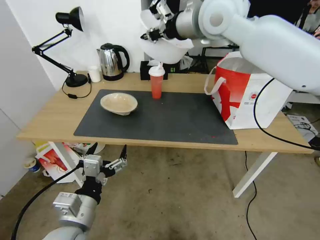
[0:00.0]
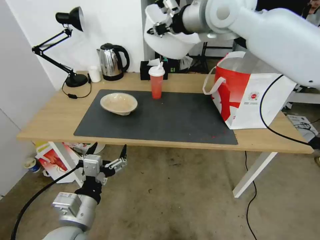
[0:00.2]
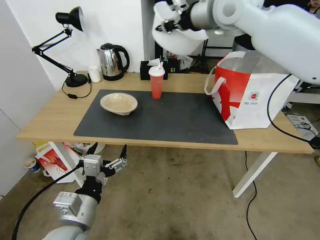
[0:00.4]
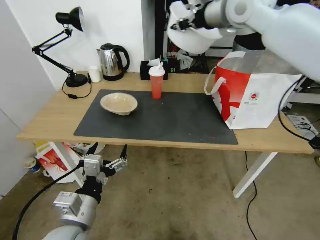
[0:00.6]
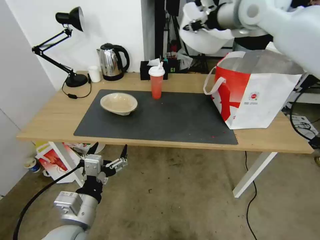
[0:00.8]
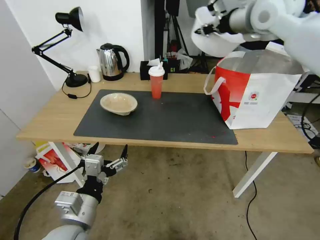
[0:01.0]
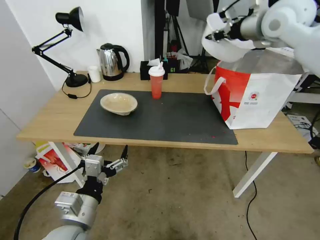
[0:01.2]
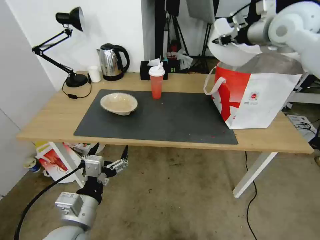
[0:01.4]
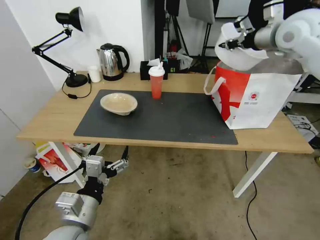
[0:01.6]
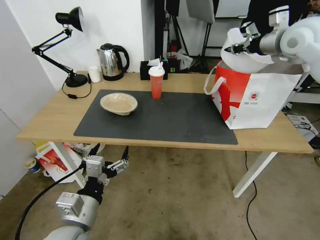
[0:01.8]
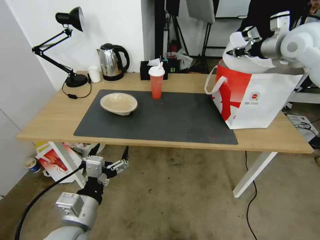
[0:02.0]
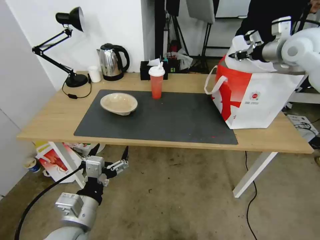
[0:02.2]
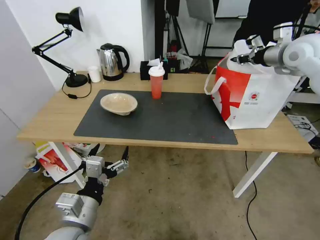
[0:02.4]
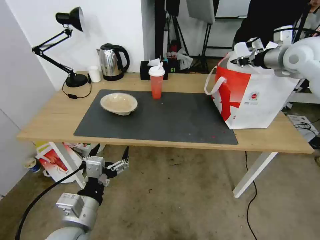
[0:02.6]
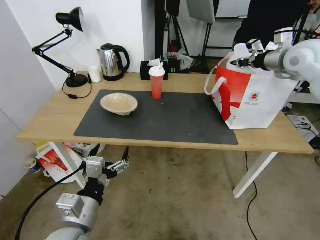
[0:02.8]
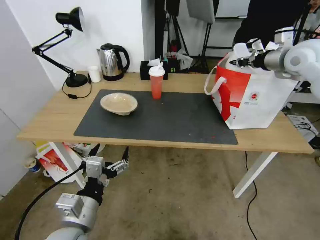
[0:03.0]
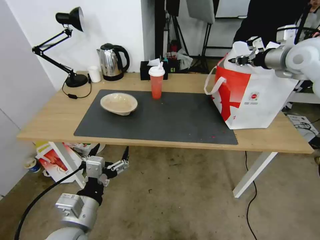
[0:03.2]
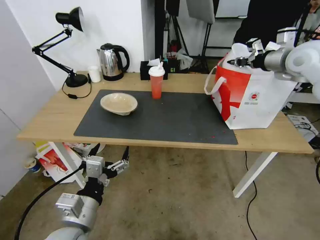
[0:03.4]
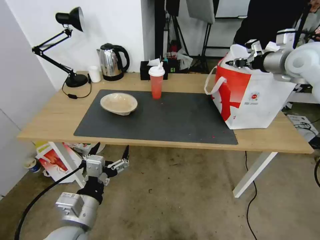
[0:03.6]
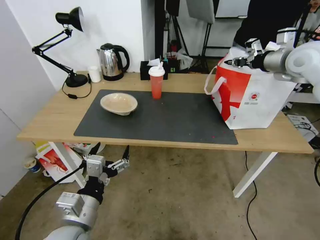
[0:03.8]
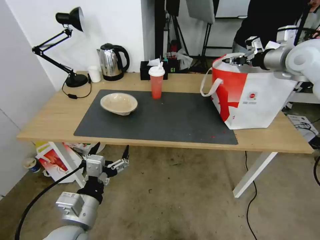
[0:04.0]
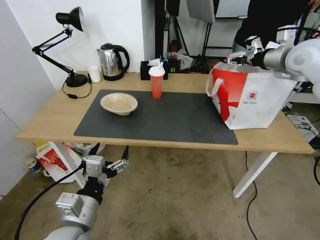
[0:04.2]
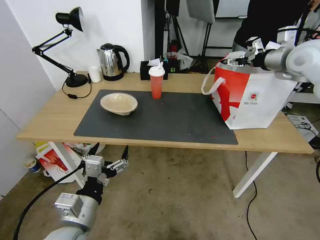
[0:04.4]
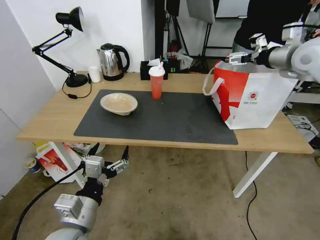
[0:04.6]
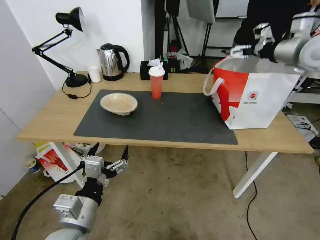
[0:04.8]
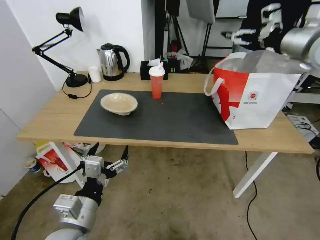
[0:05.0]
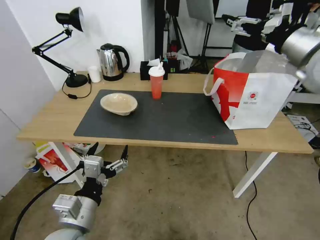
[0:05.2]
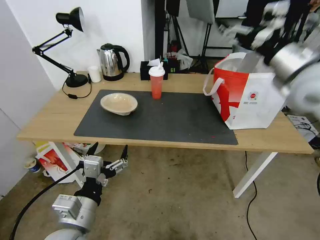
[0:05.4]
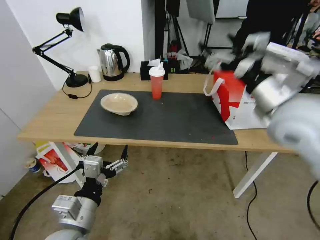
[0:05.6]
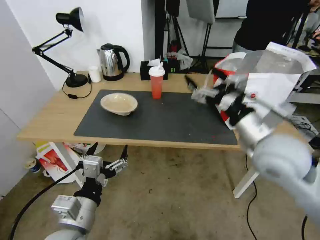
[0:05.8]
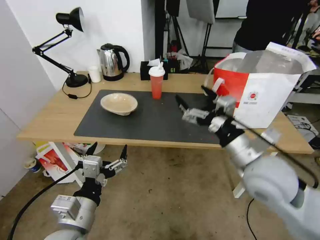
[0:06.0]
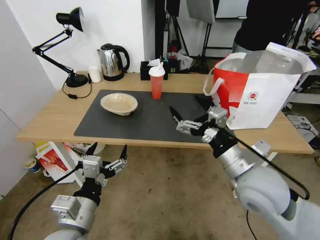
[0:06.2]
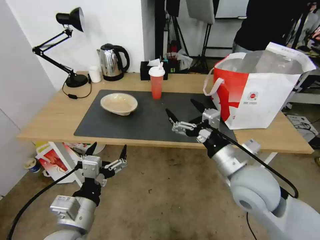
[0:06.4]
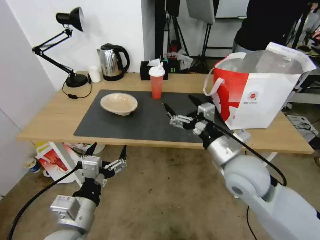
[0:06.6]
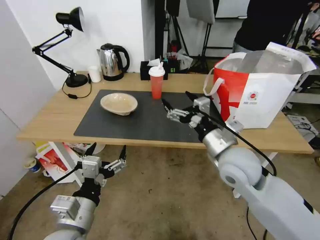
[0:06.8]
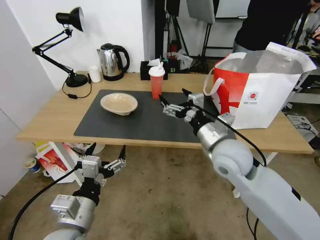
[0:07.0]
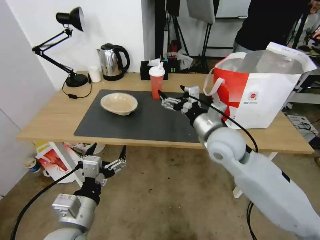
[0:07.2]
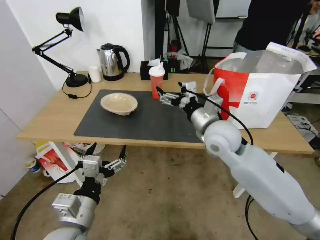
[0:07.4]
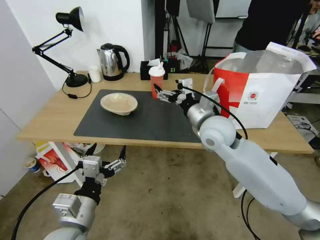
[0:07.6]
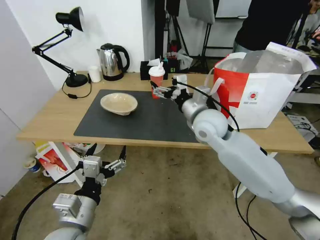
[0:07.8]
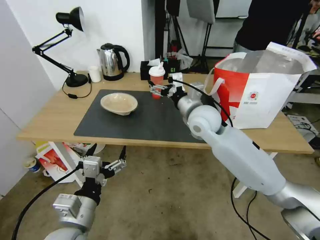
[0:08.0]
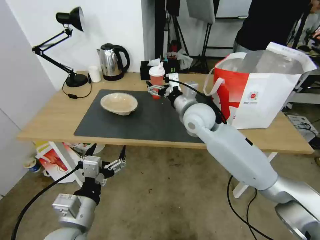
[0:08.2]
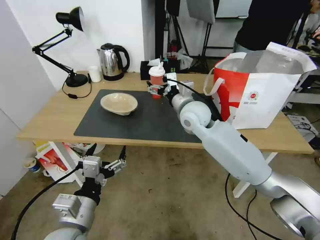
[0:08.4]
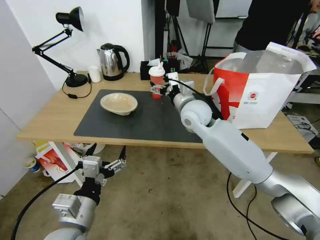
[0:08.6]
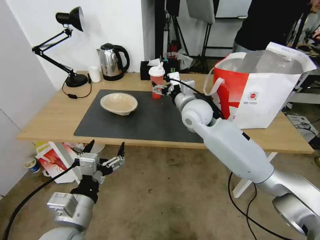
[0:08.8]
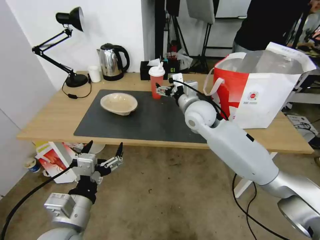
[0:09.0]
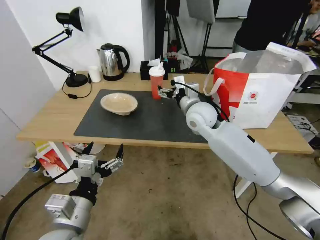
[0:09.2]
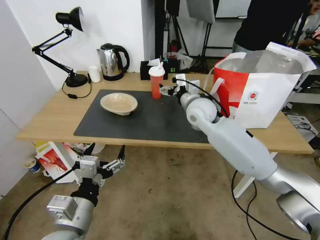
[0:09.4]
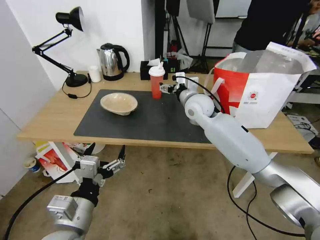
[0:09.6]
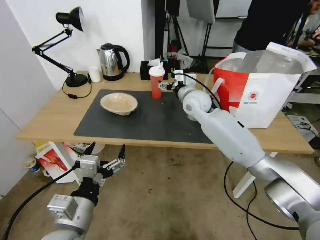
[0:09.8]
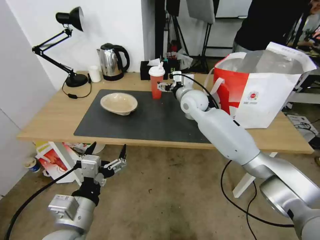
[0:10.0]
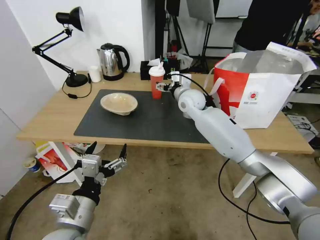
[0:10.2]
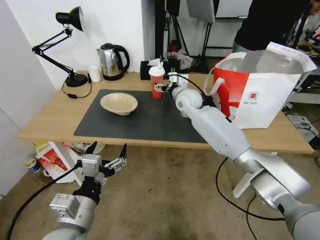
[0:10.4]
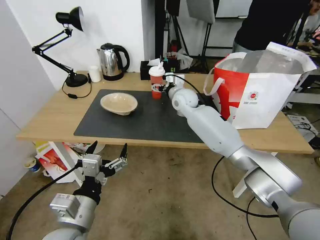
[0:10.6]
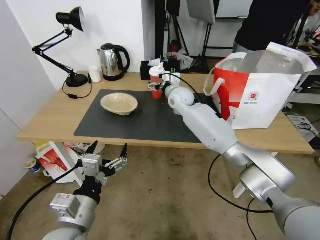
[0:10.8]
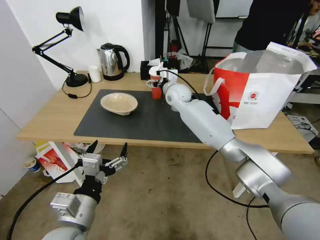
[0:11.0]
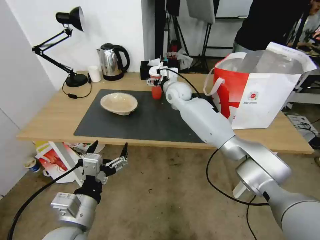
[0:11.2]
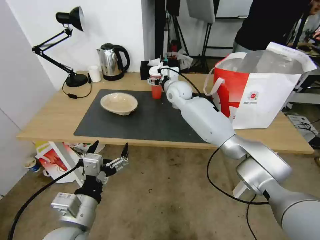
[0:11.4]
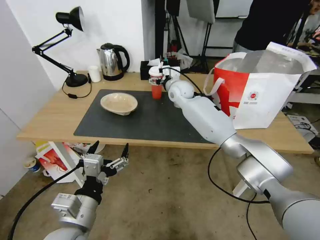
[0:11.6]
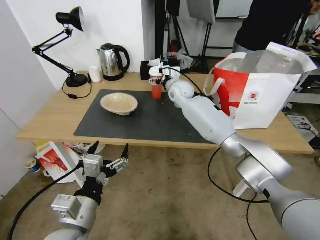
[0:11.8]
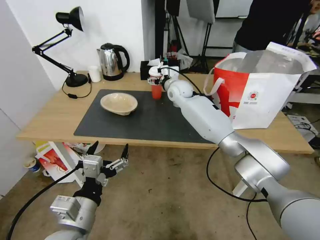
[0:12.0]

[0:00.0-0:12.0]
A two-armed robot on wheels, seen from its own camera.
Task of the whole recording: Pick up the trash from the table and place it into the takeout bag.
0:00.0 to 0:01.6: The right gripper goes about 20 cm to the right.
0:01.6 to 0:03.0: The right gripper shifts roughly 10 cm downward and to the right.
0:03.0 to 0:04.4: The right gripper opens.
0:04.4 to 0:06.0: The right gripper shifts approximately 35 cm backward, downward and to the left.
0:06.0 to 0:07.6: The right gripper moves forward and to the left, roughly 15 cm.
0:07.6 to 0:09.0: The right gripper is displaced forward by some 5 cm.
0:09.0 to 0:10.4: The right gripper heads forward, covering approximately 10 cm.
0:10.4 to 0:12.0: The right gripper shifts roughly 5 cm forward.

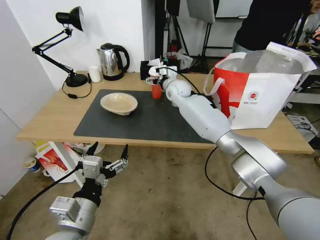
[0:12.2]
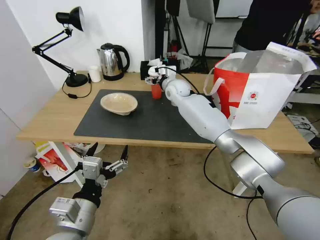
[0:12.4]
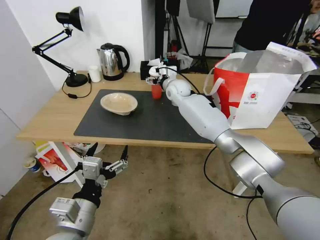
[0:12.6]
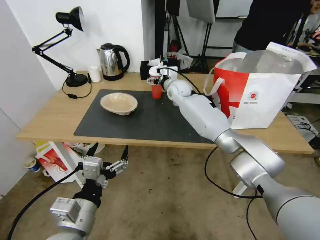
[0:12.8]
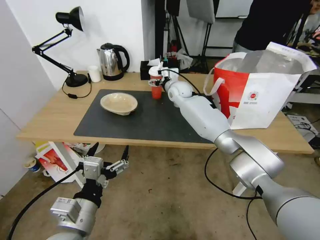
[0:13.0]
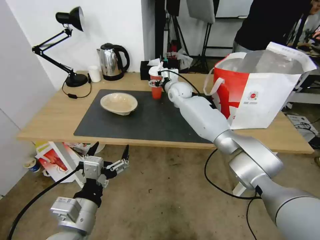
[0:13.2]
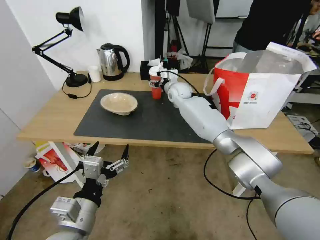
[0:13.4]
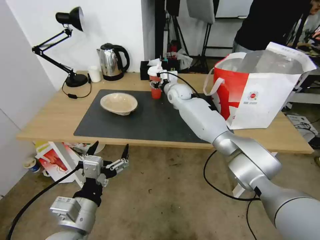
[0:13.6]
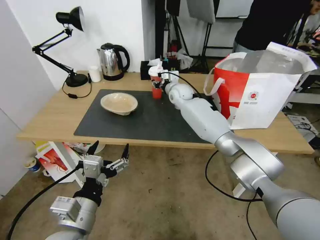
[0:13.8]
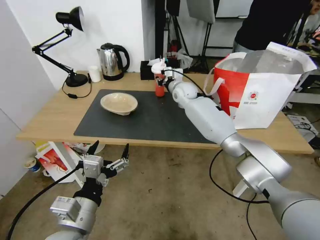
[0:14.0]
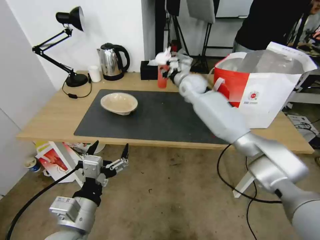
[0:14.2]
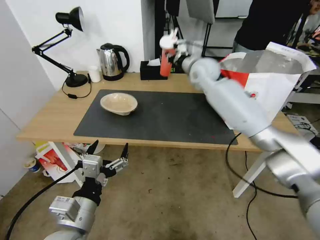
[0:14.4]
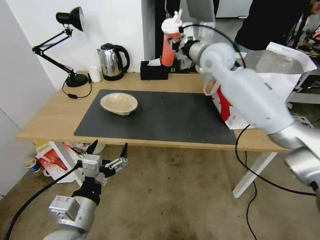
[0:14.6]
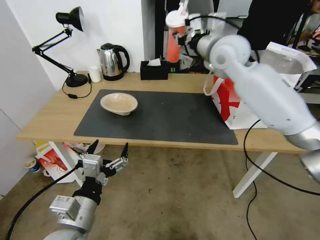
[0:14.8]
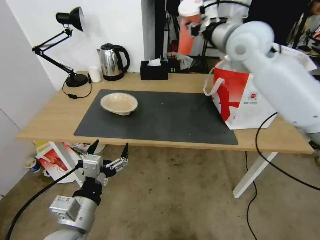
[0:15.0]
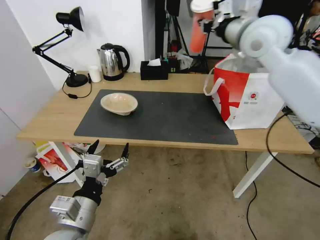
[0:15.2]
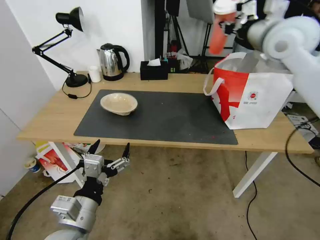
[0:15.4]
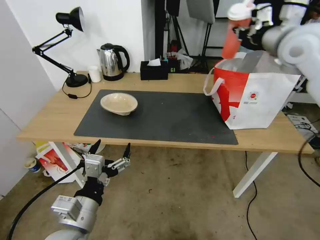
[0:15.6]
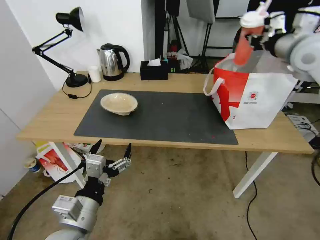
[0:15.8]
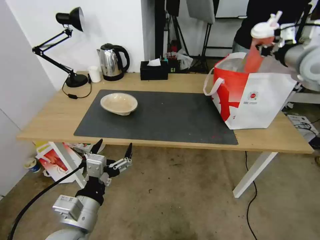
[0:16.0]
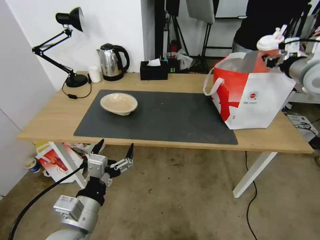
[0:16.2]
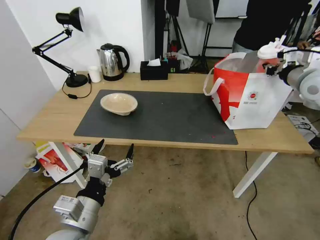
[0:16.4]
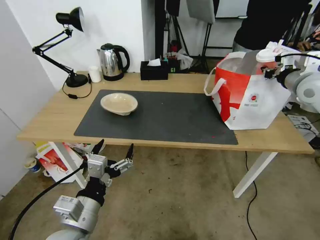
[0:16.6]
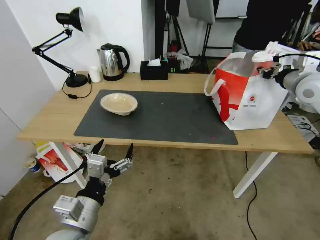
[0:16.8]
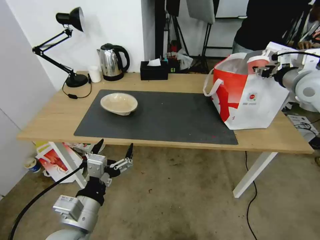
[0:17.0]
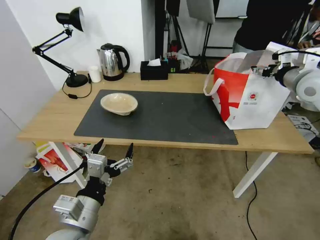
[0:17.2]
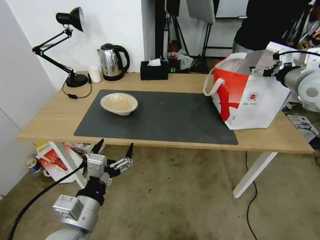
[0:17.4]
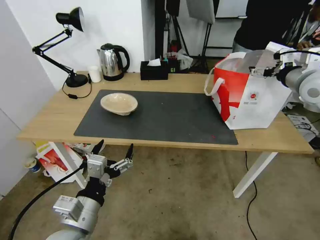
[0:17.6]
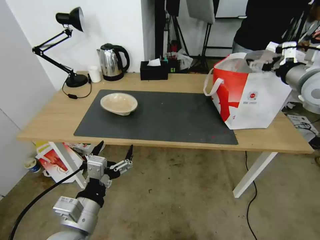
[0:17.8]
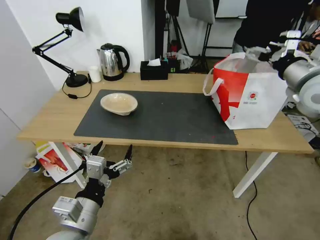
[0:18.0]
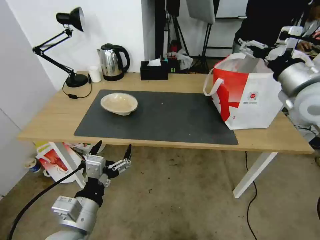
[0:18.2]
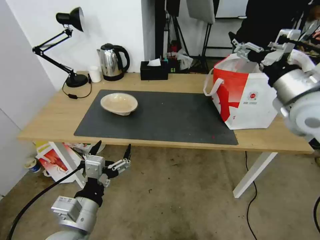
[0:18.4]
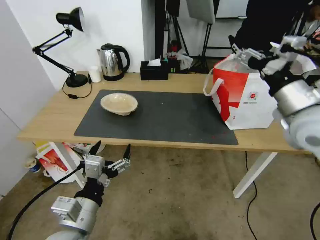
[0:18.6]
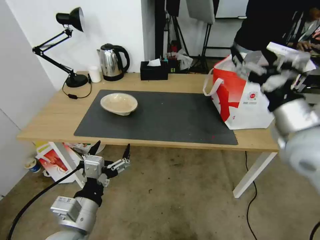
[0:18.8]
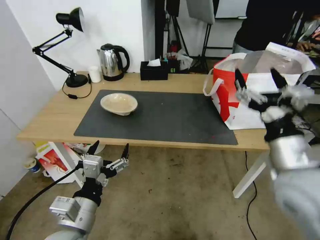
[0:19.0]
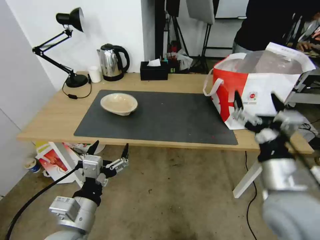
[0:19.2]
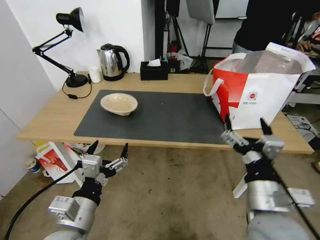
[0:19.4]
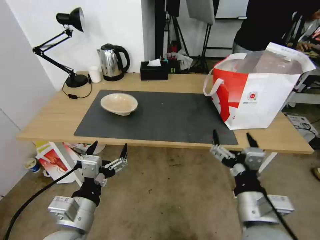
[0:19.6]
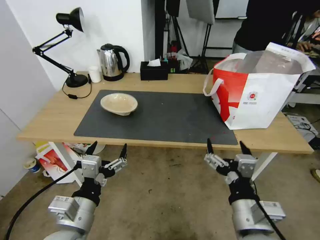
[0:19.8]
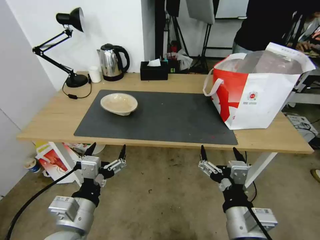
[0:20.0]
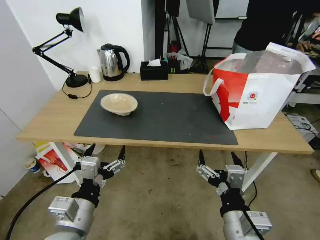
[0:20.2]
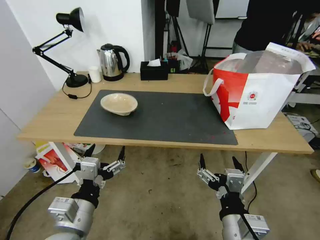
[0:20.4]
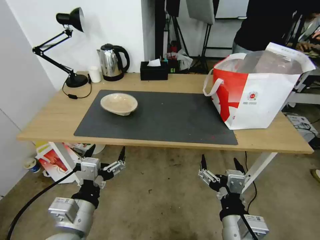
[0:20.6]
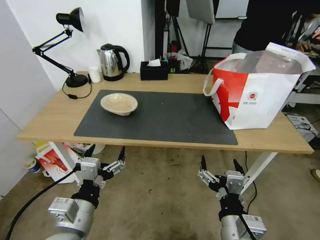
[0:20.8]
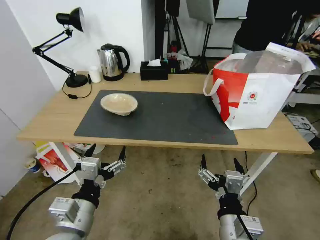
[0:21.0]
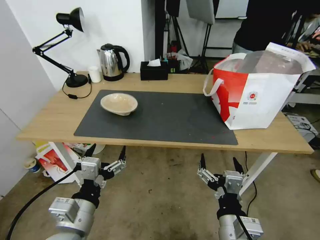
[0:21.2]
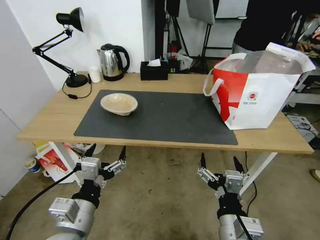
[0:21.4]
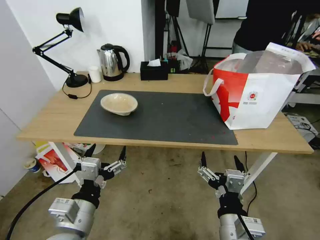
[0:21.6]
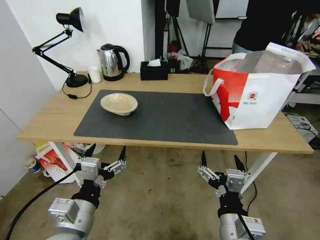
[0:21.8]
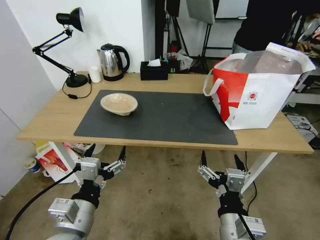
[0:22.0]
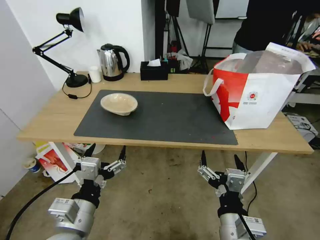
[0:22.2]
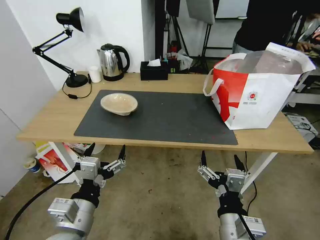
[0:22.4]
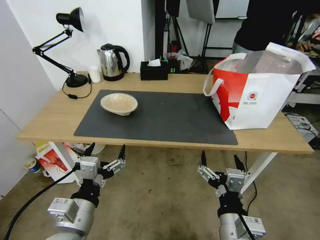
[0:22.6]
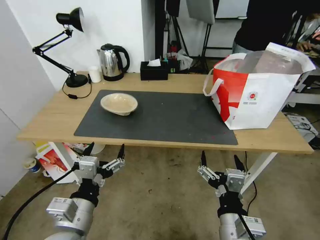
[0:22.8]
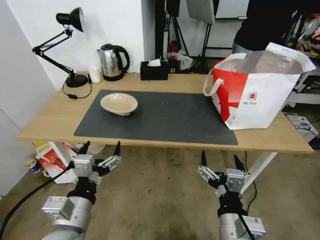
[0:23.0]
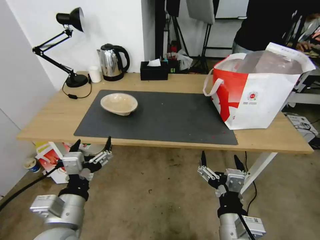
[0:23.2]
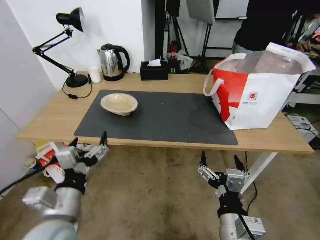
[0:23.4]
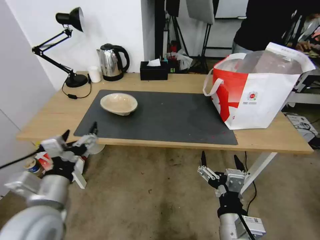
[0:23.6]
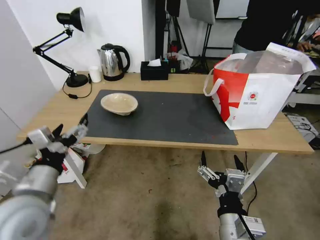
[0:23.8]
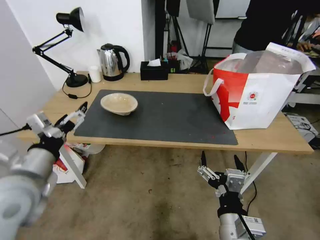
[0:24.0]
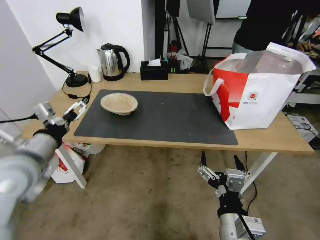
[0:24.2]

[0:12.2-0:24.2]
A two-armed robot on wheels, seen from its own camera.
Task of the whole recording: Pick up the trash from the table and place it into the takeout bag.
0:12.2 to 0:13.8: The right gripper closes.
0:13.8 to 0:15.2: The right gripper travels upward, backward and to the right by approximately 35 cm.
0:15.2 to 0:16.6: The right gripper moves to the right and downward, roughly 25 cm.
0:16.6 to 0:18.2: The right gripper opens.
0:18.2 to 0:19.8: The right gripper travels backward, to the left and downward by approximately 40 cm.
0:19.8 to 0:21.2: The grippers move only a little.
0:21.2 to 0:22.6: The two grippers keep their place.
0:22.6 to 0:24.2: The left gripper travels forward, to the left and upward by some 20 cm.
